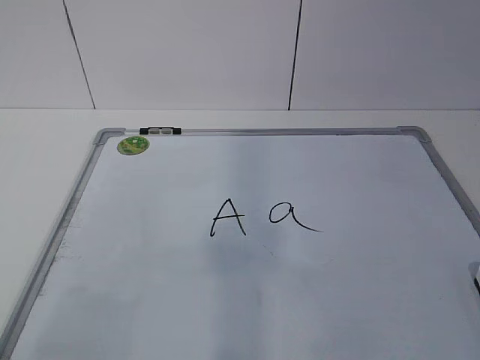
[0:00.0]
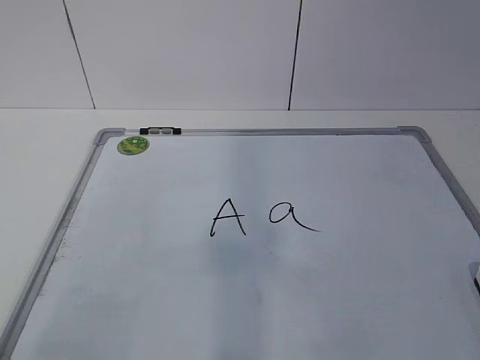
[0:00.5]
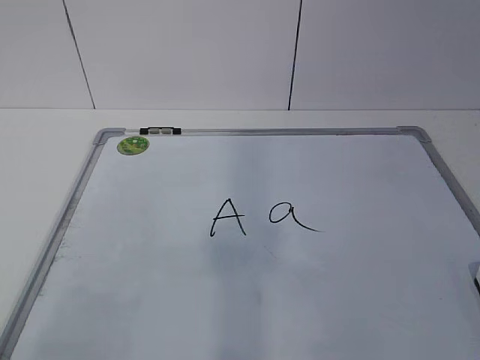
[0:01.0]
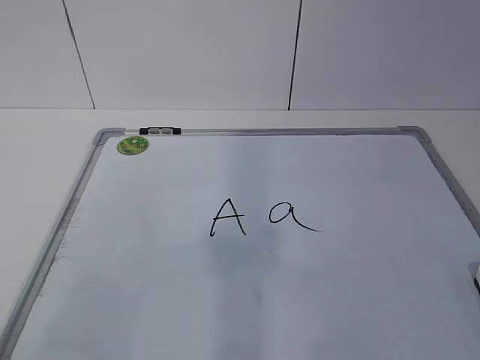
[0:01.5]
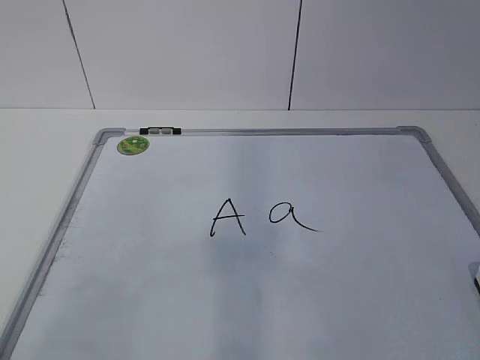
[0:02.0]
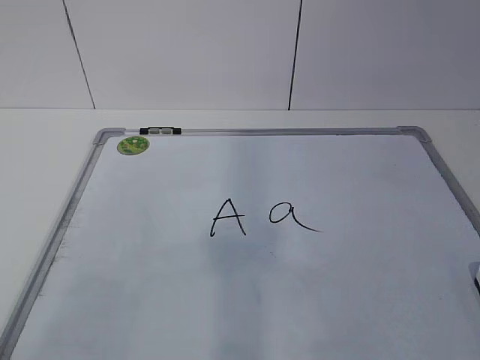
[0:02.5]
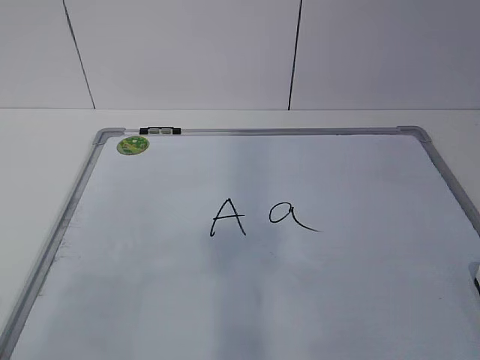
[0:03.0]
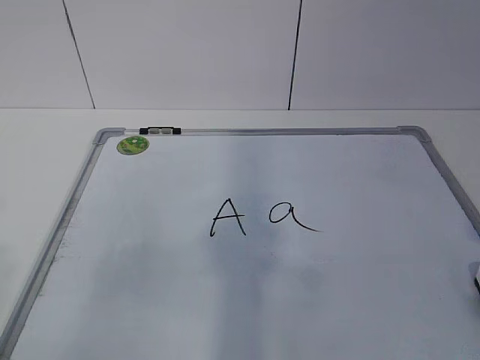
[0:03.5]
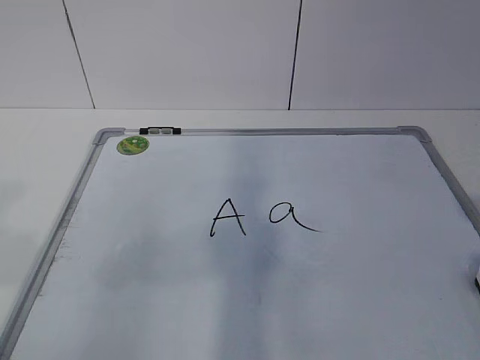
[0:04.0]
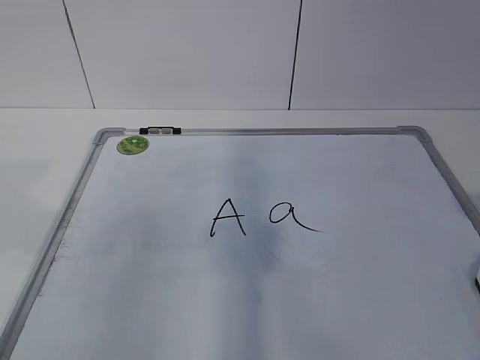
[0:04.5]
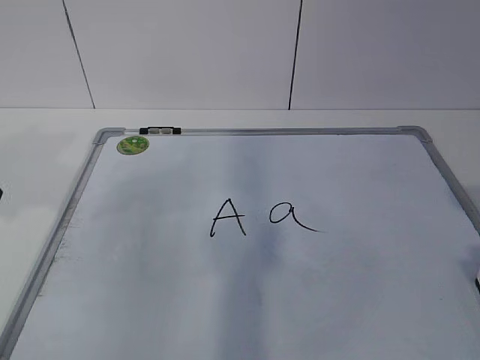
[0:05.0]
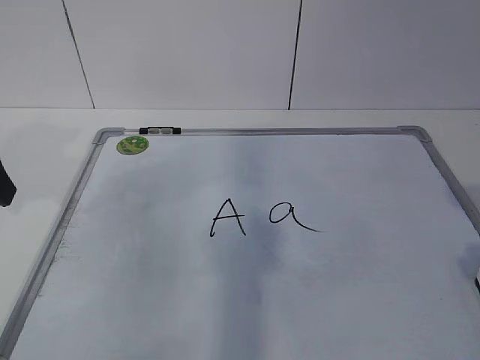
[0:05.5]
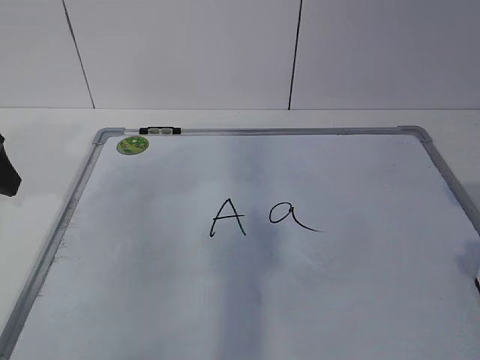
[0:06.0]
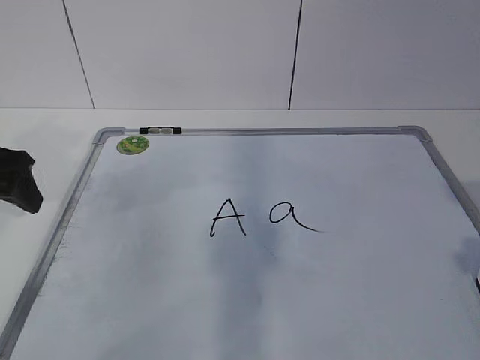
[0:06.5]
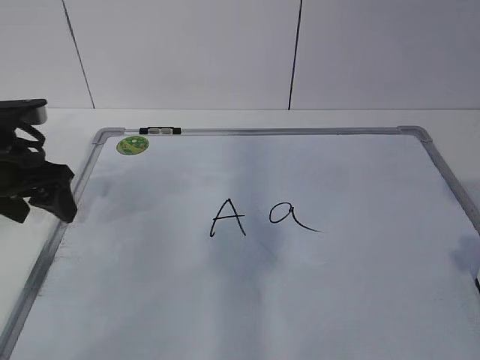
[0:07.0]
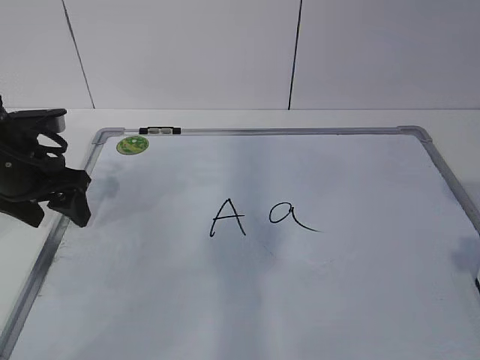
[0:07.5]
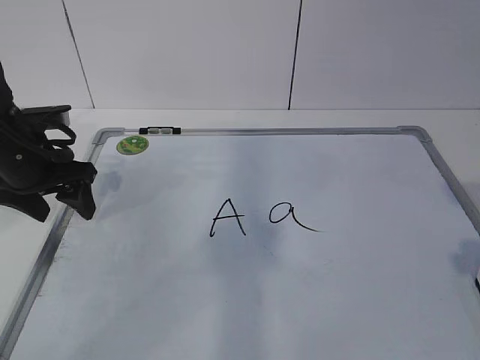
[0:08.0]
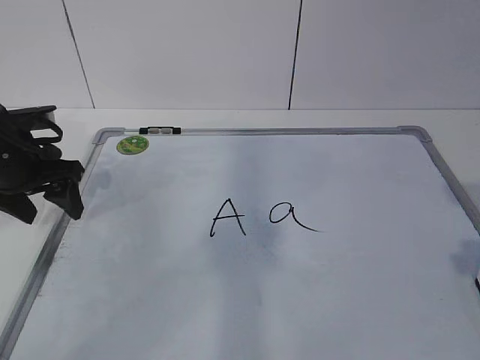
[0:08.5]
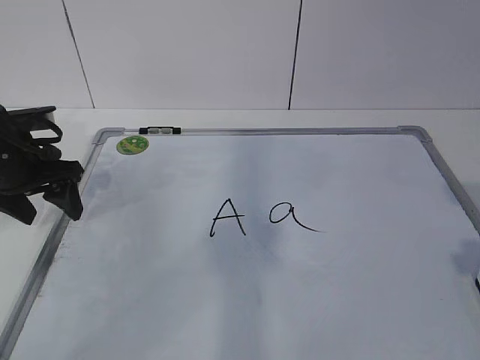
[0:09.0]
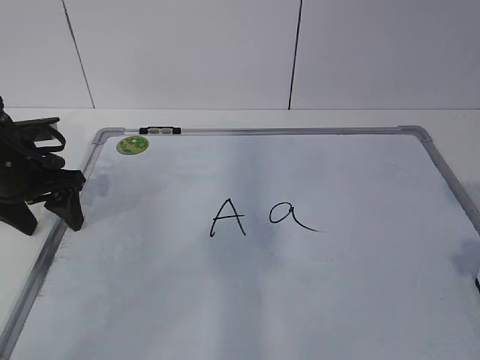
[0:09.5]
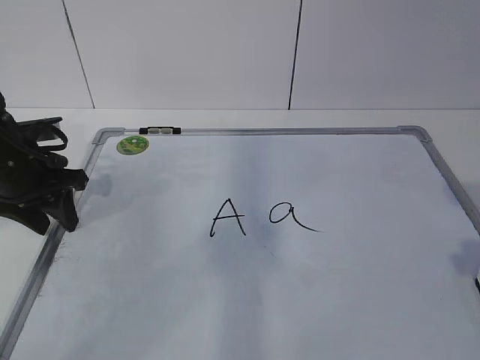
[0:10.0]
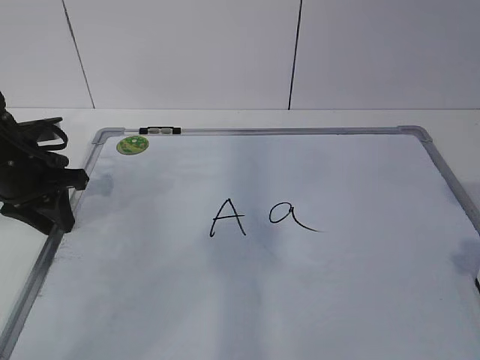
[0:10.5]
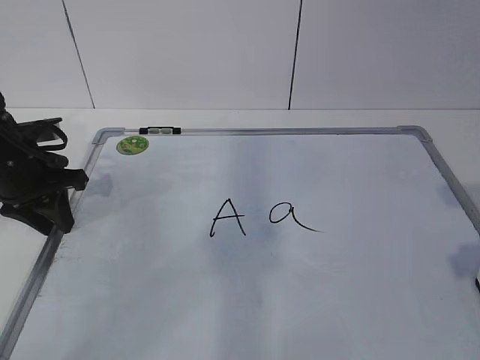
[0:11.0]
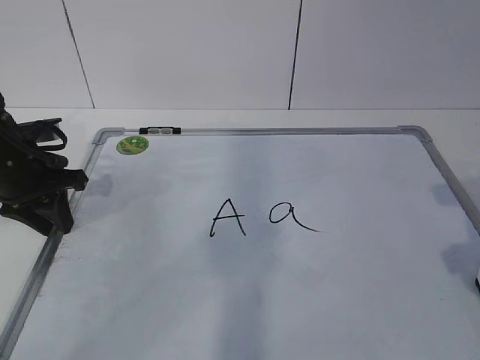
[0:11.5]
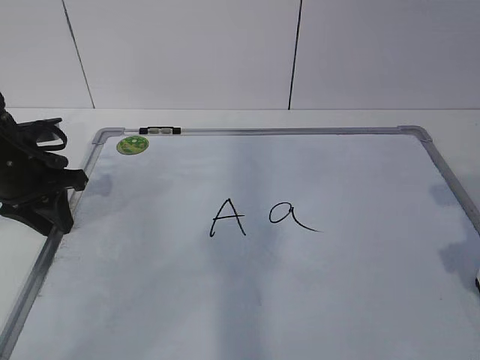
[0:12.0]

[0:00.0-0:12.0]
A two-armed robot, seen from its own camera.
Task of the whole recording: pick up the eraser on the blackboard and erase the letter "a".
Step, 0:00.0 to 0:08.0: Hold the drawing board steady with your left hand.
0:06.0 to 0:08.0: The left gripper travels downward and forward by about 15 cm.
0:08.0 to 0:10.0: The left gripper closes up.

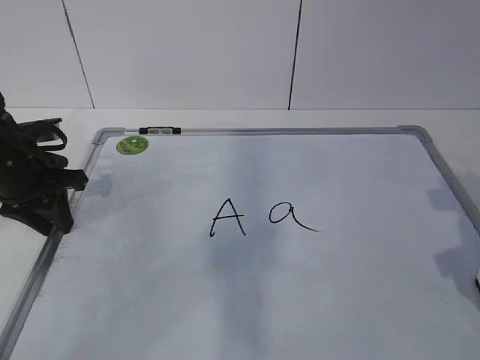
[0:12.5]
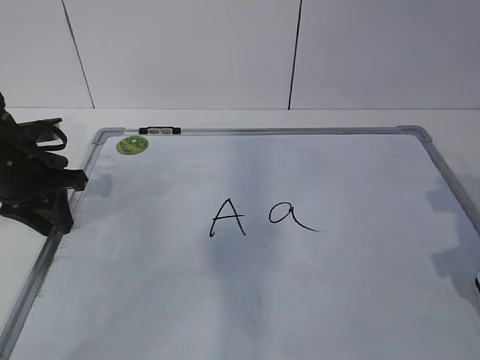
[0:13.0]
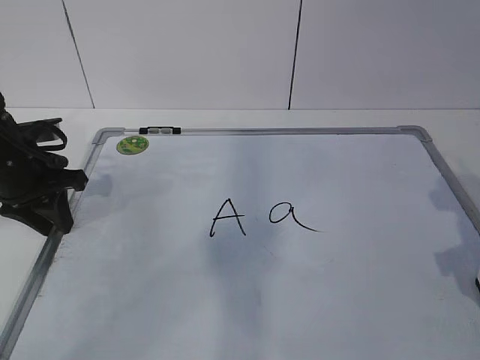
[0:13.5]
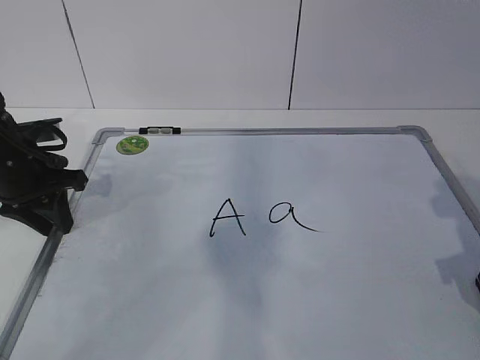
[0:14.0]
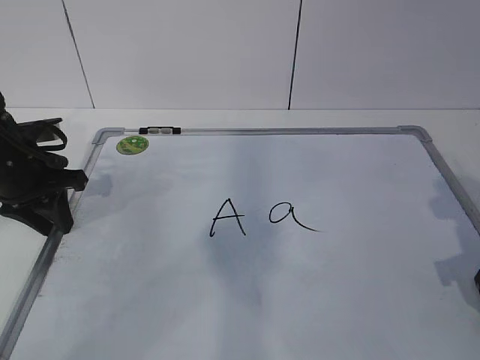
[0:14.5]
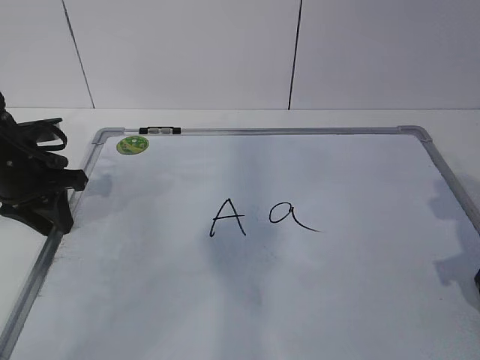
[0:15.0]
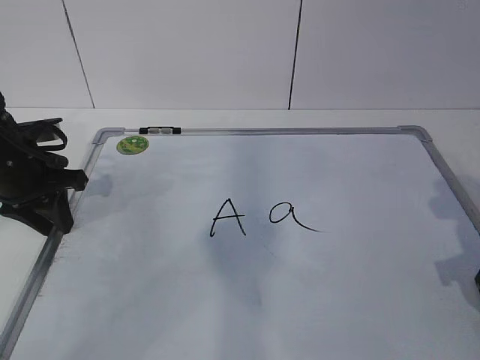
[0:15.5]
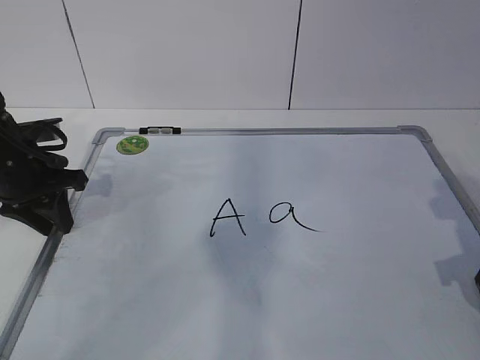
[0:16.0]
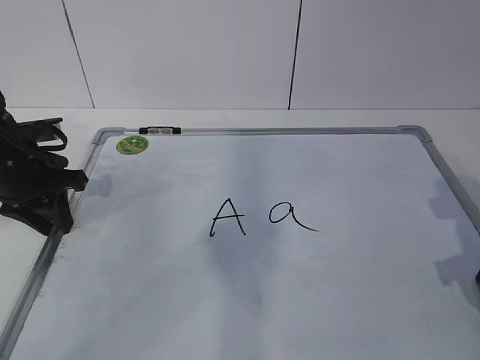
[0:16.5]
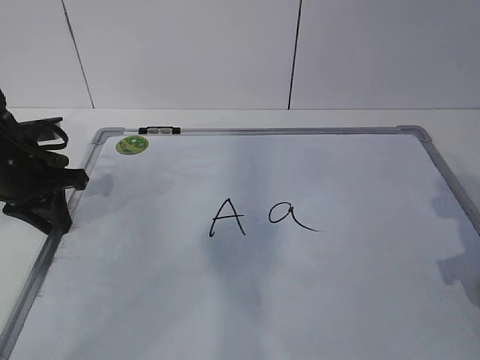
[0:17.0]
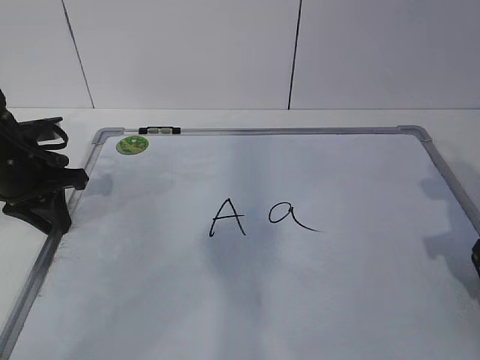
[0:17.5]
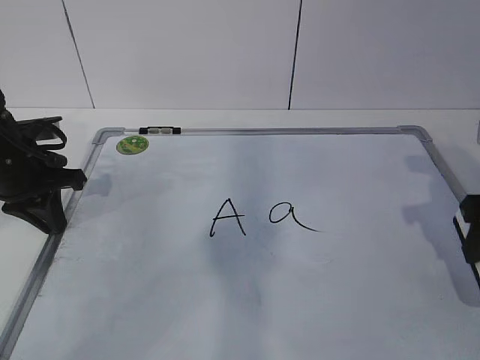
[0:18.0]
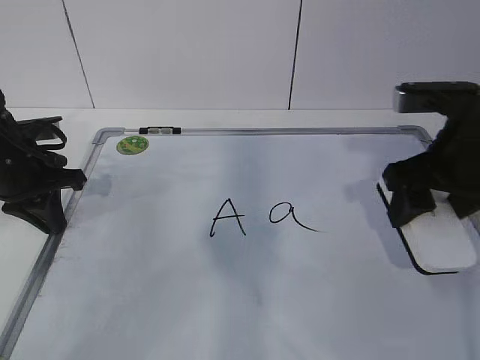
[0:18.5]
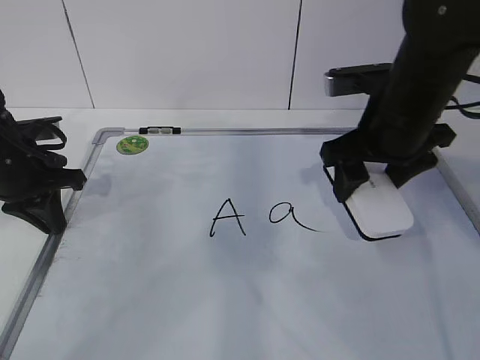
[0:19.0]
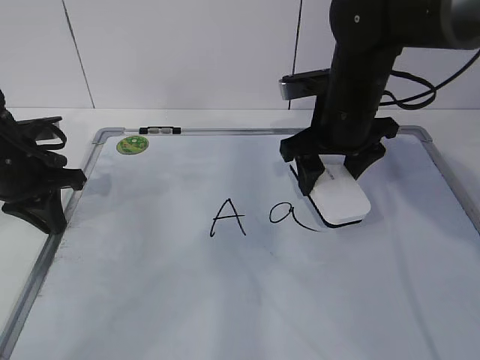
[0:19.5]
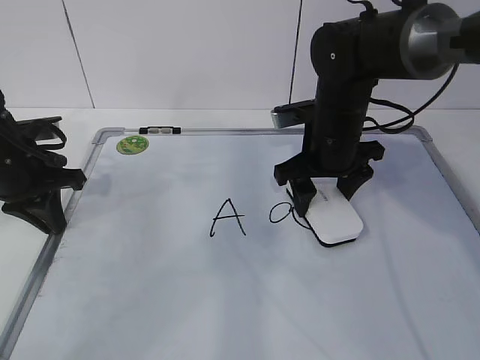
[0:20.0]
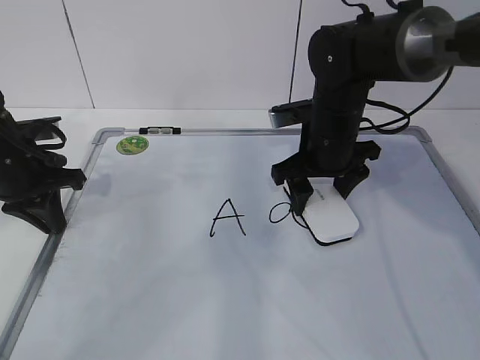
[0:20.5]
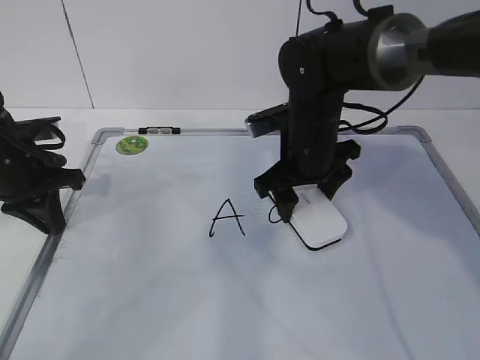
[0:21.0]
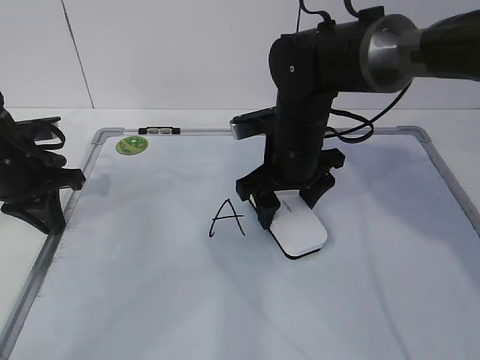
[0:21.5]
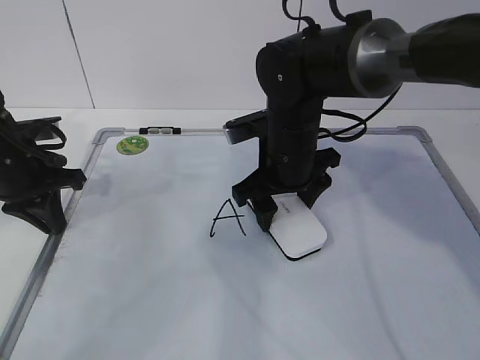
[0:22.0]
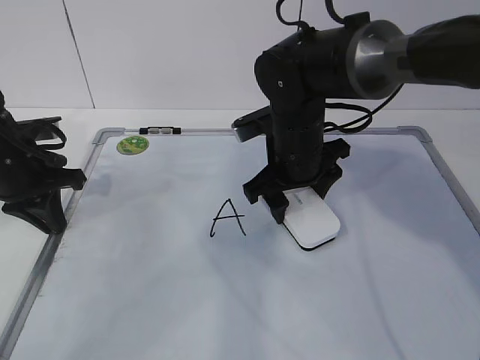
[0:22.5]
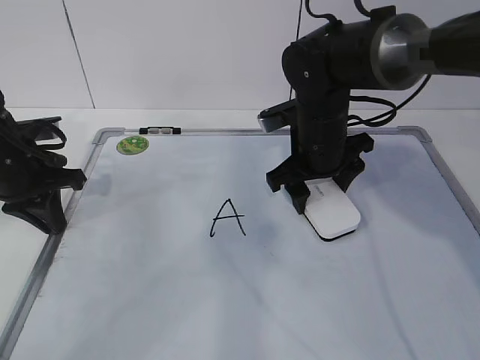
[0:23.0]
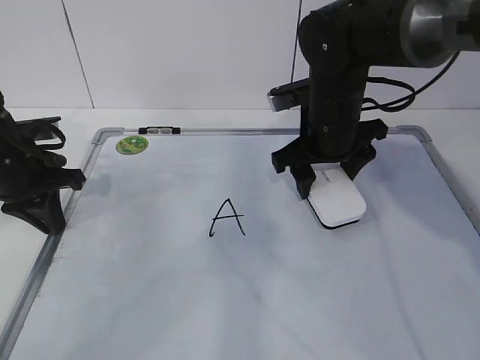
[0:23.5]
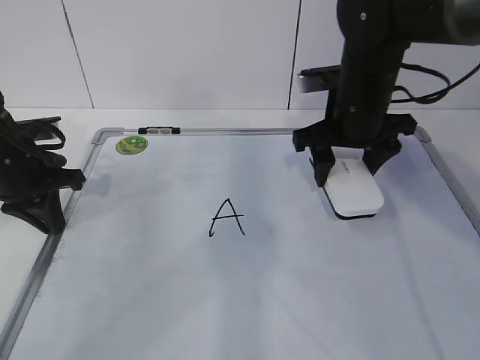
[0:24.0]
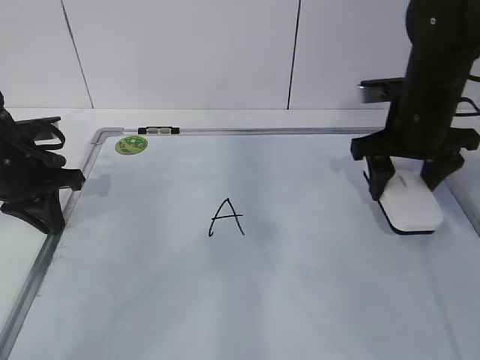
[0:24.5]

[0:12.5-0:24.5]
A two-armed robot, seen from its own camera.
Task of the whole recording: pick up the eraser on the blackboard and erase the letter "a".
Step, 0:12.5 to 0:19.0: Erase the letter a with your right hand.
Step, 0:19.5 to 0:23.0: Put down the eraser with your right hand.
0:14.5 to 0:16.5: The two grippers keep their place.
0:16.5 to 0:18.5: The right gripper shifts approximately 15 cm to the left, upward and forward.
0:18.5 to 0:20.5: The right gripper moves forward, to the left and downward, about 15 cm.
0:20.5 to 0:22.5: The grippers make only small movements.
0:22.5 to 0:24.5: The right gripper moves to the right, about 15 cm.

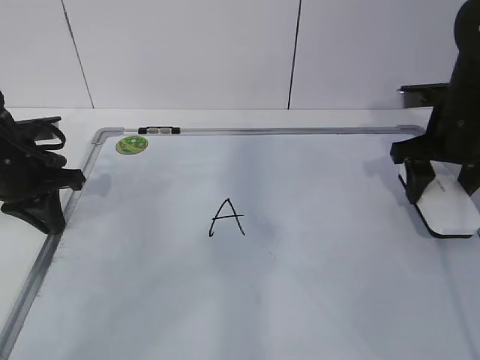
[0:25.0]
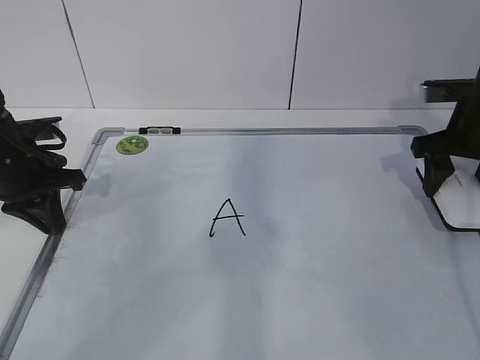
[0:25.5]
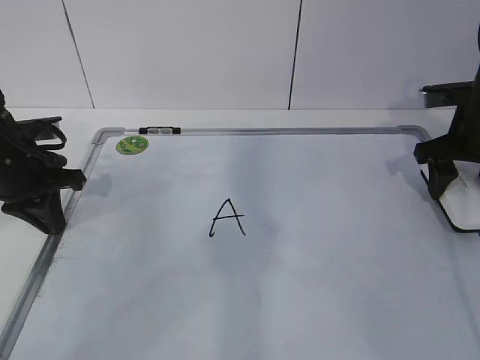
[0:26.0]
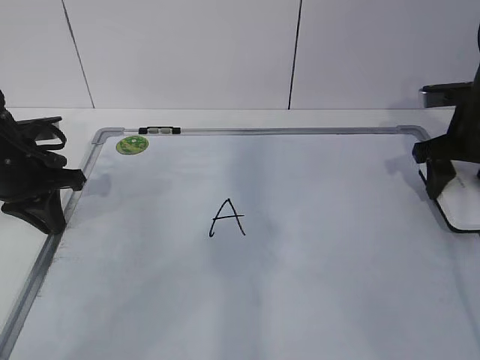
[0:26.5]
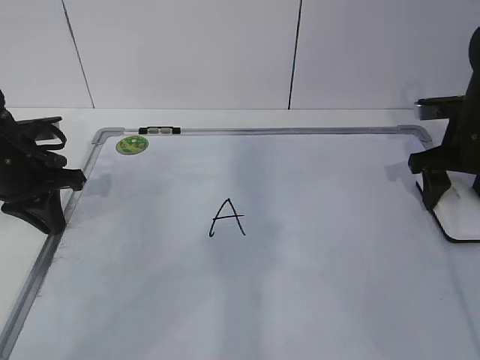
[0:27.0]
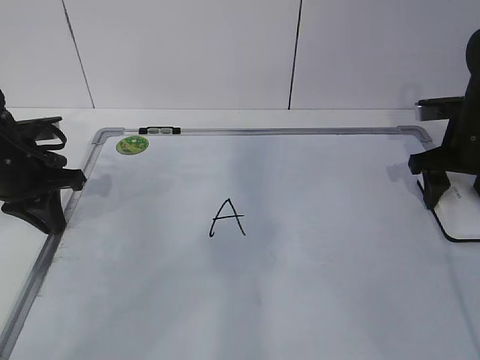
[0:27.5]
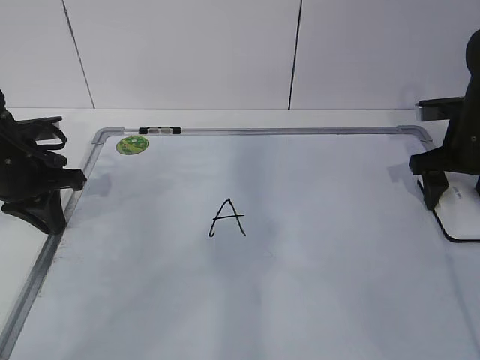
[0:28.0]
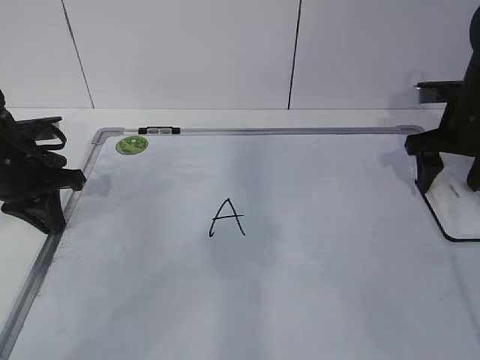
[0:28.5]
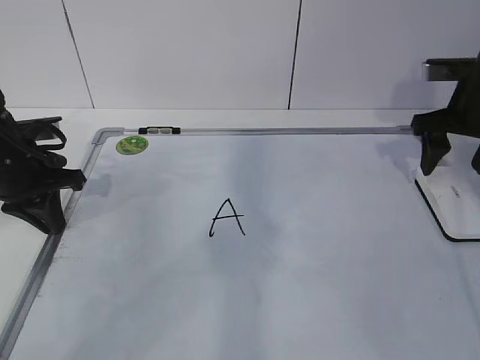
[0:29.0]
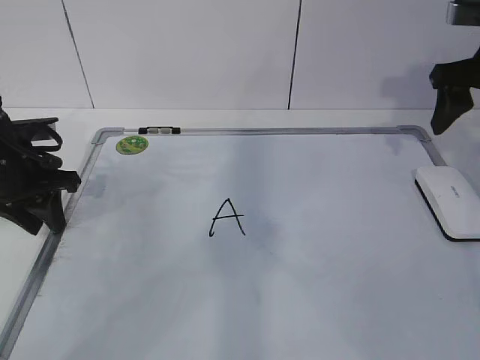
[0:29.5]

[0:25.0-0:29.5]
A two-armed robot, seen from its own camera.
Task of the whole recording: pick up the eraser on the blackboard and erase the letter "a".
0:25.0 to 0:27.0: The grippers make only small movements.
0:27.0 to 0:29.5: The left gripper opens up. The right gripper goes roughly 10 cm upward, and opens its fingers.
